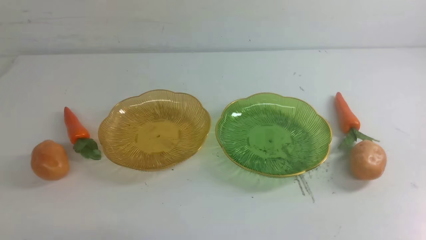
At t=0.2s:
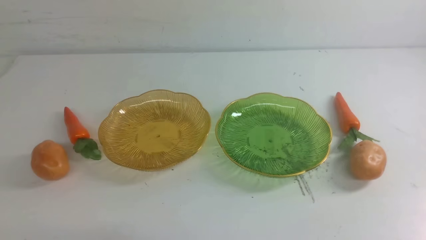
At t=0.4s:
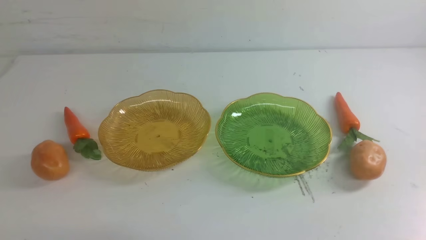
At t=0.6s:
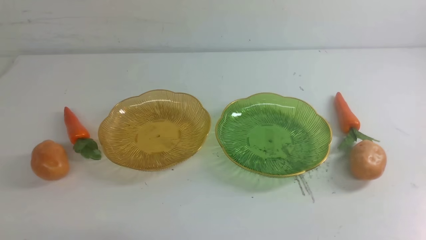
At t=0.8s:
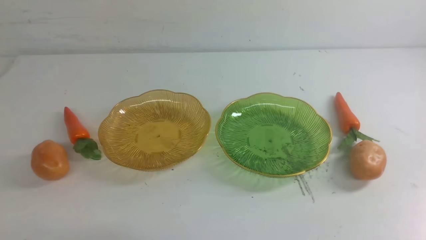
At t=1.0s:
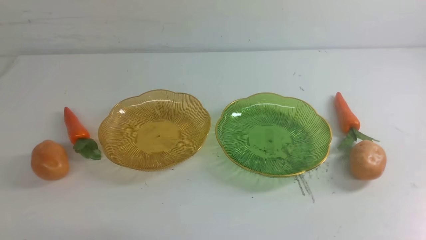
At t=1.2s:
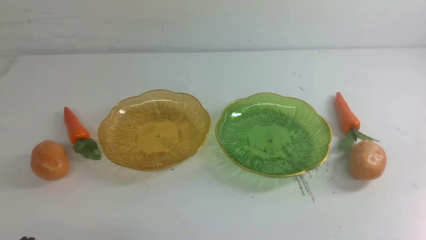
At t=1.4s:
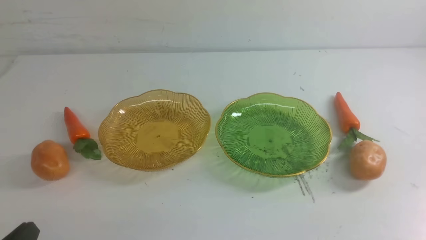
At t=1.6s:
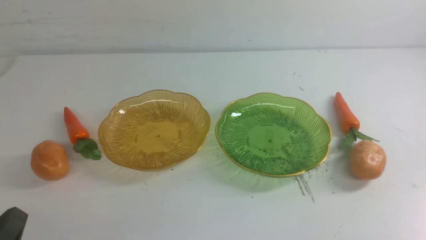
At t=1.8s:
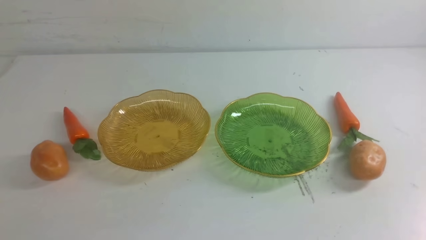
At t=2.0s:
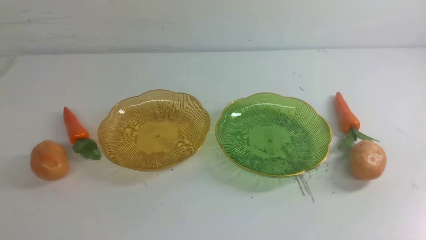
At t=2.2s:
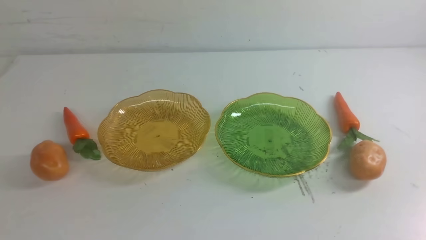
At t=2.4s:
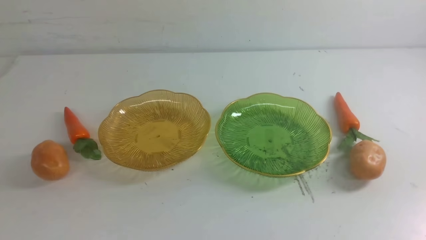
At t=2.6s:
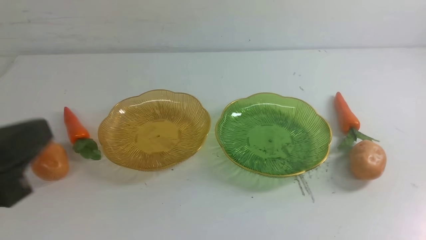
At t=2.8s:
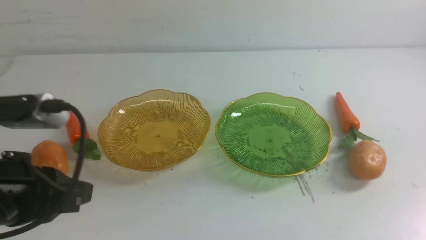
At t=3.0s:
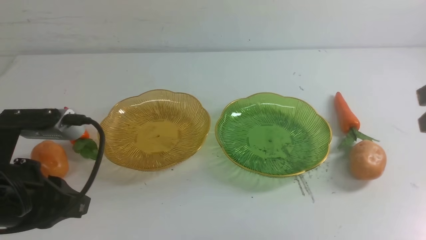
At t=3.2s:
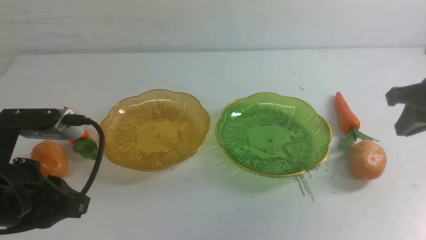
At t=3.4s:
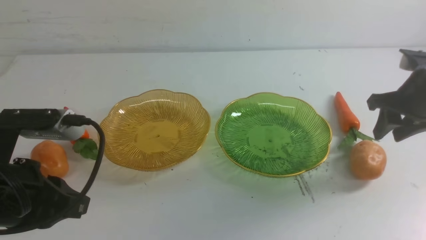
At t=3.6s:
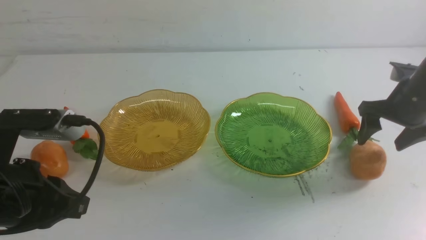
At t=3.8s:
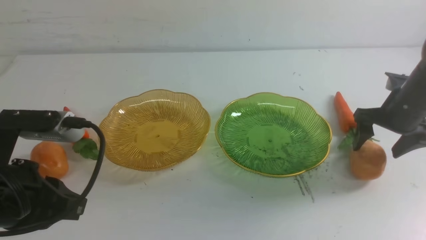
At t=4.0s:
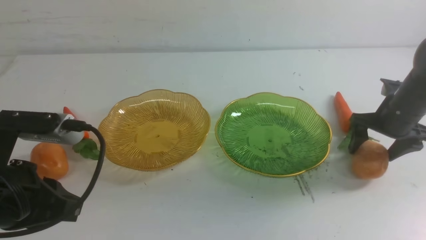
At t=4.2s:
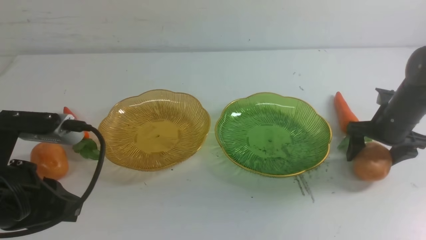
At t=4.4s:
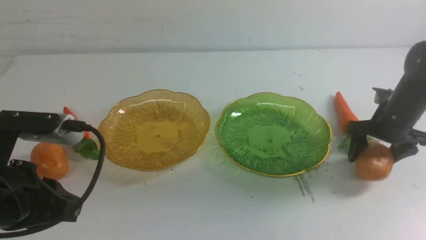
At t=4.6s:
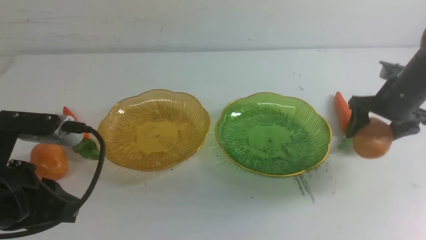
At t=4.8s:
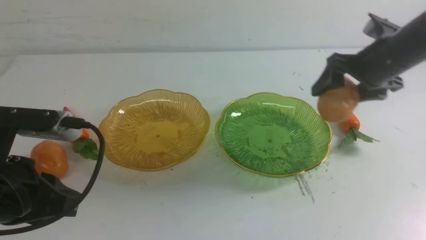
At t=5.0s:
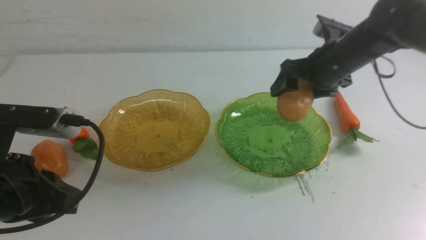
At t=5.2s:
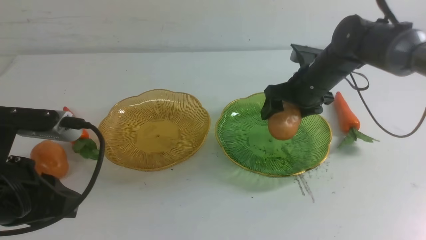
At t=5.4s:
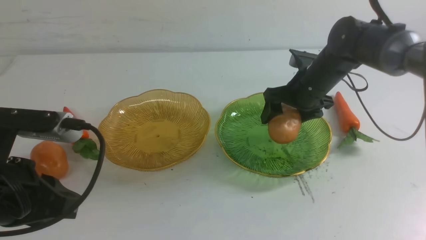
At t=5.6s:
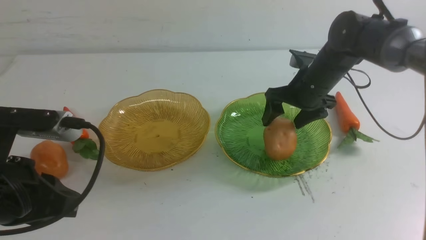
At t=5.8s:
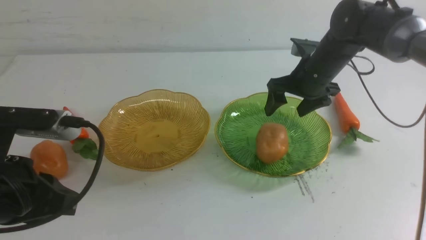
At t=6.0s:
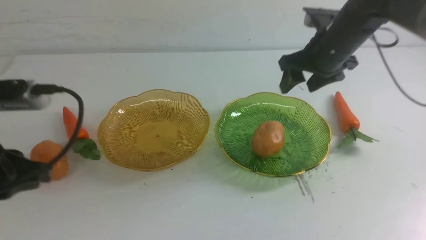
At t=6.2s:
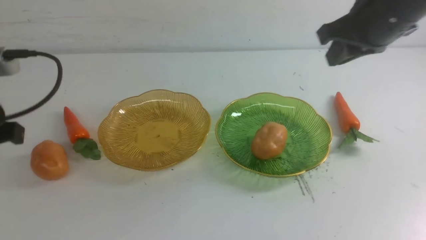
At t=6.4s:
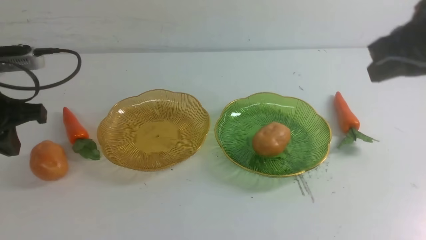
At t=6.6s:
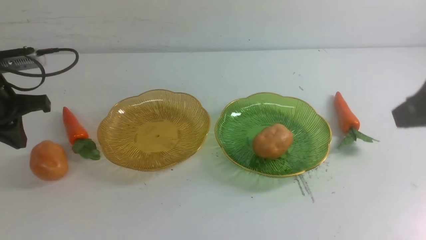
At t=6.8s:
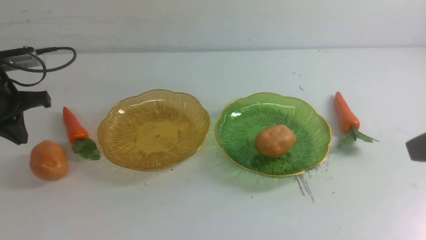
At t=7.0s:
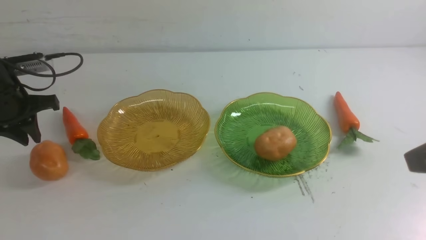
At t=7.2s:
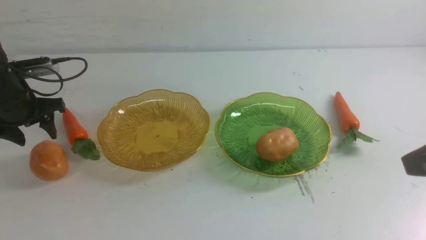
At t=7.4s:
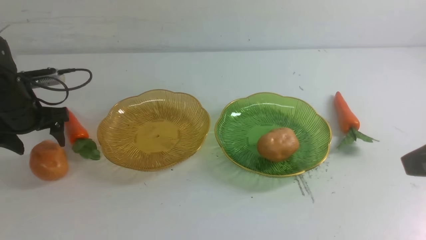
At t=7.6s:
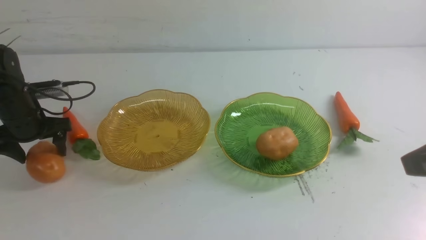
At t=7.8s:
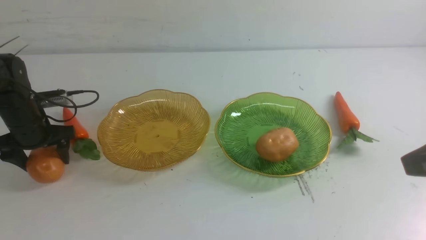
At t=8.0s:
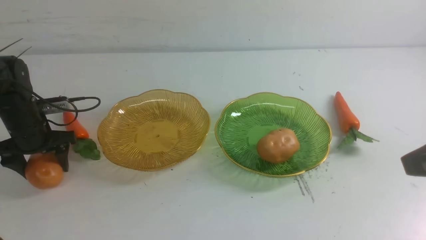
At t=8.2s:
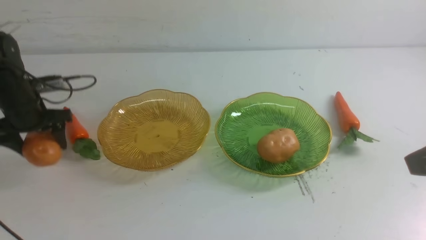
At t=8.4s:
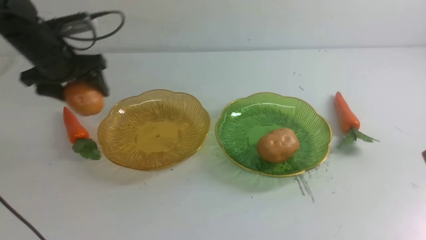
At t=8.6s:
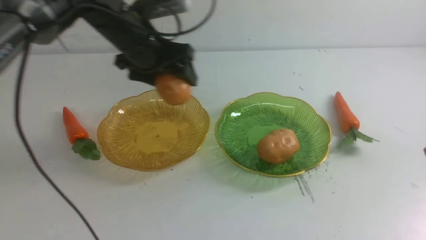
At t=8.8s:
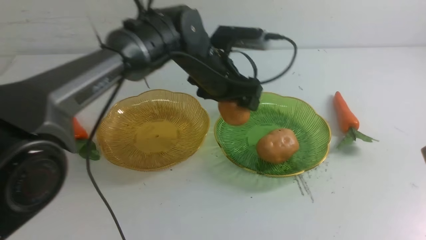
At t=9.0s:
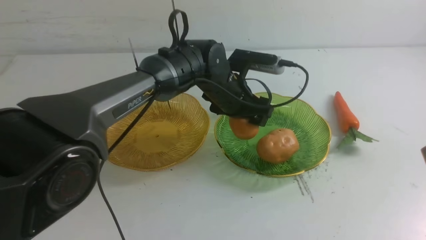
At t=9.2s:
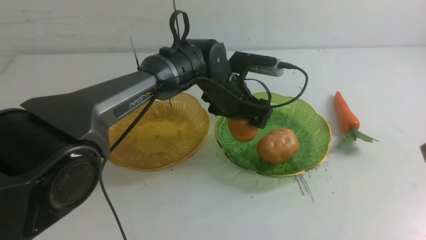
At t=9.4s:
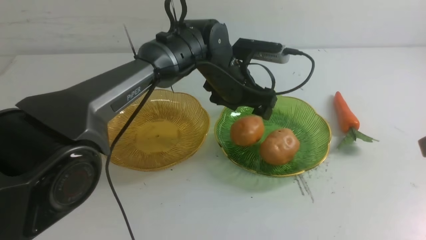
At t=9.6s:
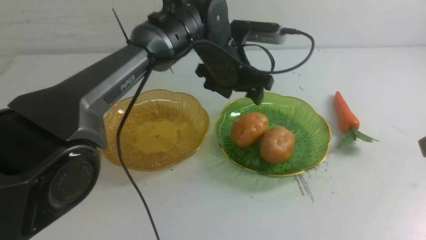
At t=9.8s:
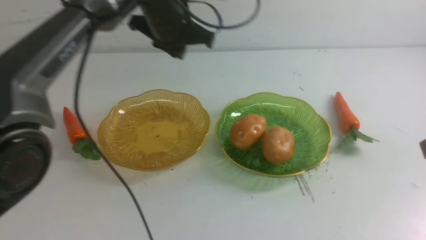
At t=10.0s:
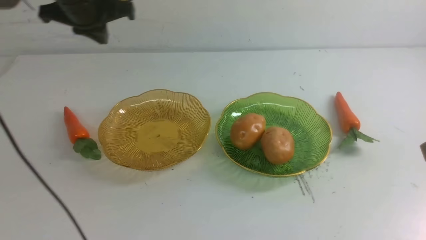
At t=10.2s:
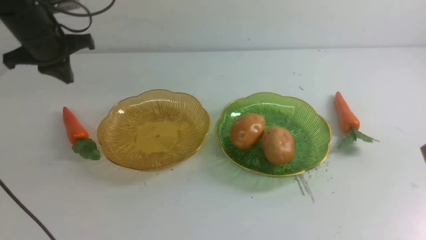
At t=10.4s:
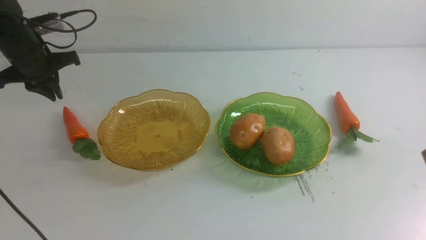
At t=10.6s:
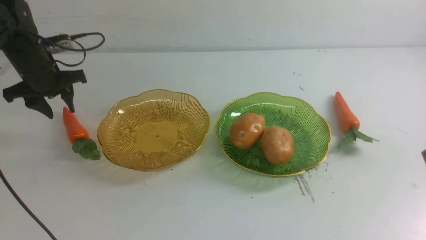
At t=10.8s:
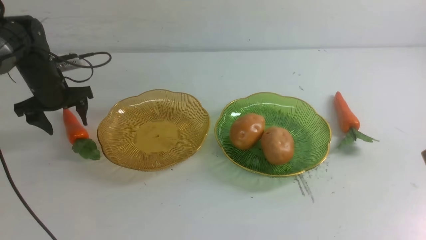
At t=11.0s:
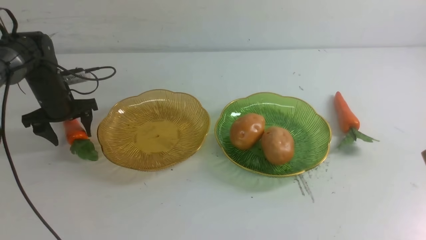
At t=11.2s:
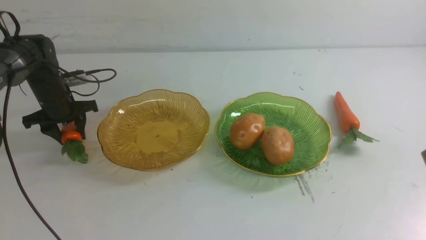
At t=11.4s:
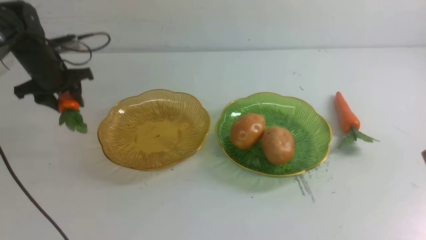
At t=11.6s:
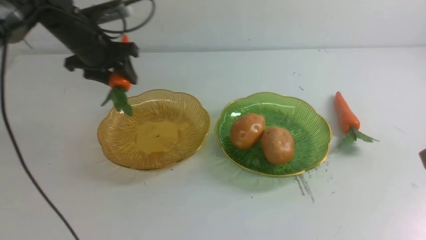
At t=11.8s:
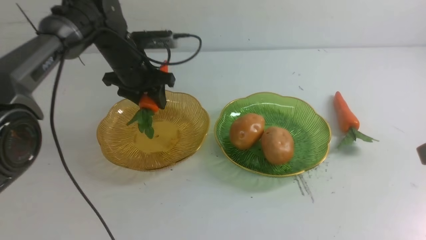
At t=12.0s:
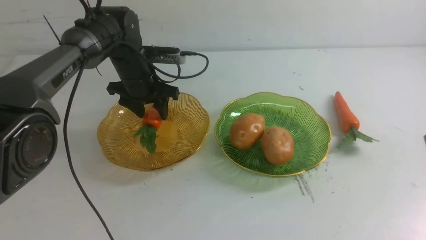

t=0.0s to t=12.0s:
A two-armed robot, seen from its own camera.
Step, t=0.0s to t=6.0s: Grab a potato with your right arm and put it on the right plate.
Step, t=6.2s to t=9.6s: Grab a potato with your left arm and put it on the right plate.
t=1.6s to t=3.0s: The left gripper travels forward and upward by about 15 cm.
t=3.0s to t=4.4s: The right gripper heads downward and forward, covering about 20 cm, and opens its fingers.
t=4.4s to t=6.0s: The right gripper heads upward and to the left, covering some 20 cm.
t=6.0s to t=7.6s: The right gripper heads backward, covering approximately 25 cm, and closes; the left gripper goes about 25 cm forward, downward and to the left, and opens.
t=7.6s to t=9.0s: The left gripper shifts some 35 cm to the right.
t=9.0s to t=10.4s: The left gripper moves to the left, roughly 30 cm, and closes up.
t=10.4s to t=12.0s: The left gripper moves to the right, some 15 cm, and opens its fingers.

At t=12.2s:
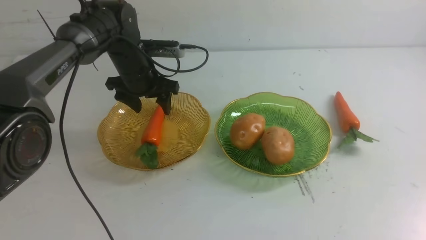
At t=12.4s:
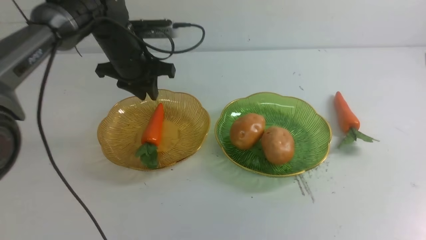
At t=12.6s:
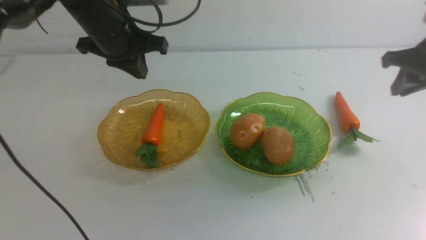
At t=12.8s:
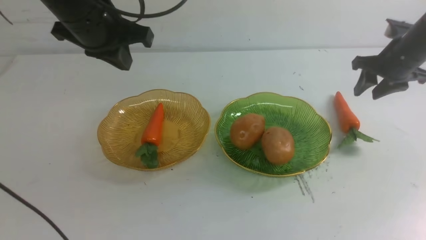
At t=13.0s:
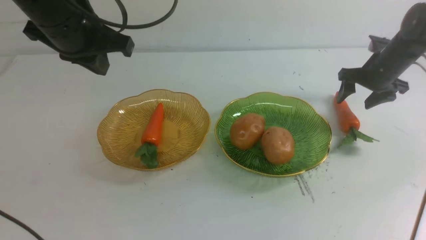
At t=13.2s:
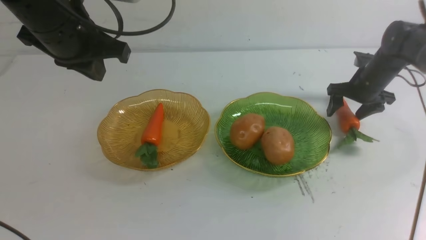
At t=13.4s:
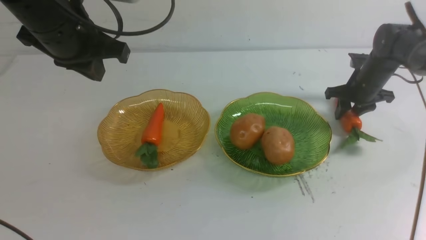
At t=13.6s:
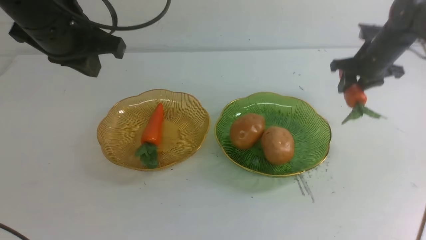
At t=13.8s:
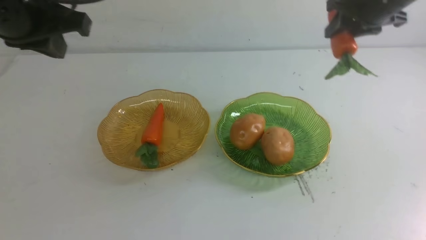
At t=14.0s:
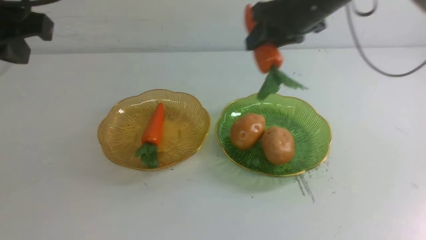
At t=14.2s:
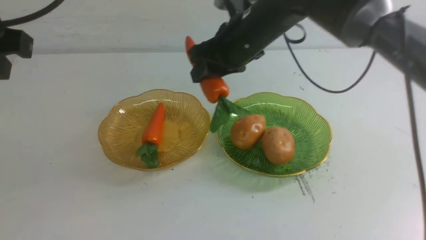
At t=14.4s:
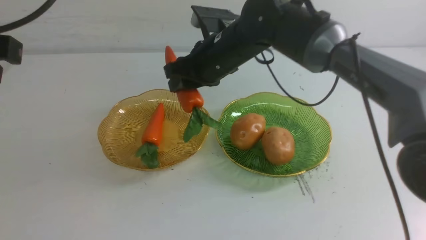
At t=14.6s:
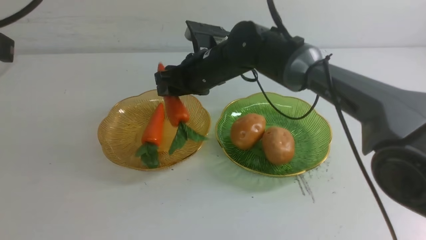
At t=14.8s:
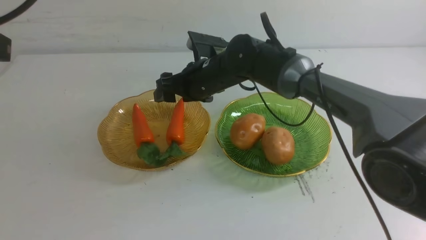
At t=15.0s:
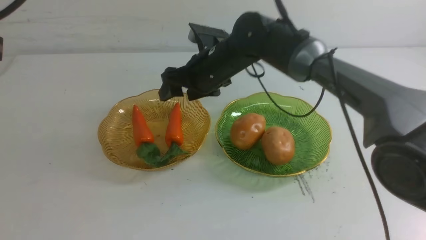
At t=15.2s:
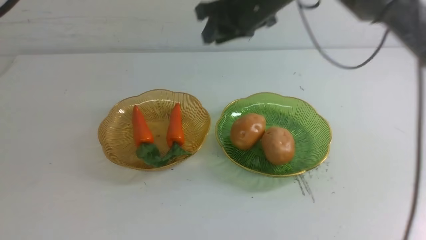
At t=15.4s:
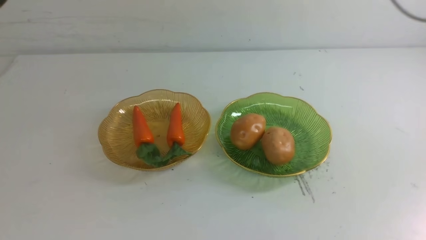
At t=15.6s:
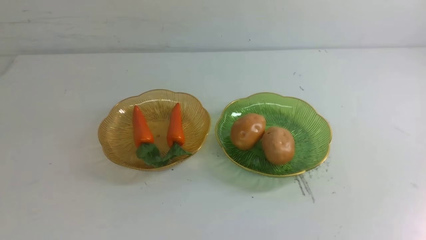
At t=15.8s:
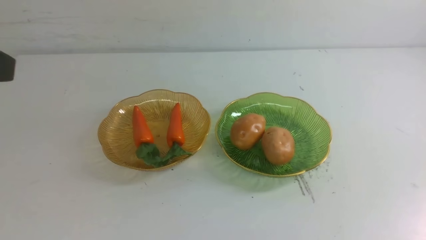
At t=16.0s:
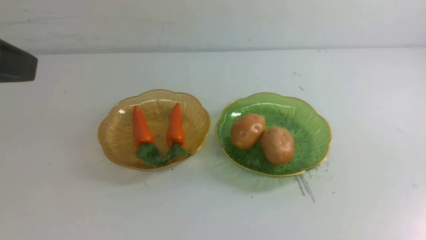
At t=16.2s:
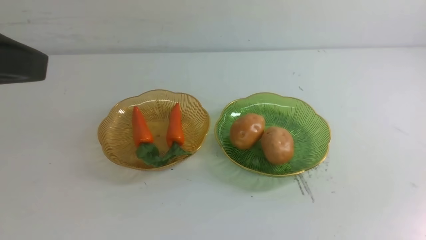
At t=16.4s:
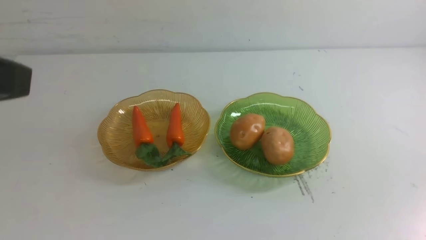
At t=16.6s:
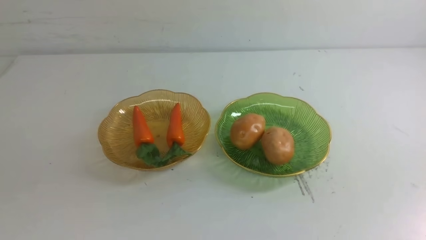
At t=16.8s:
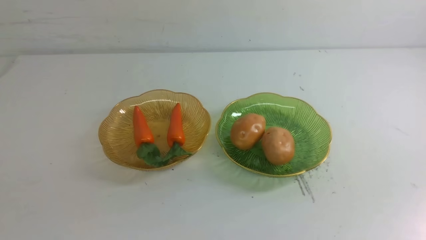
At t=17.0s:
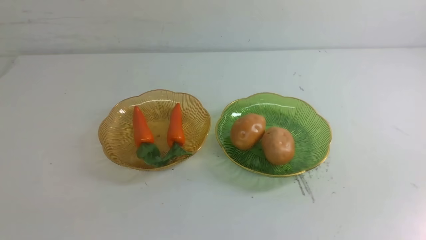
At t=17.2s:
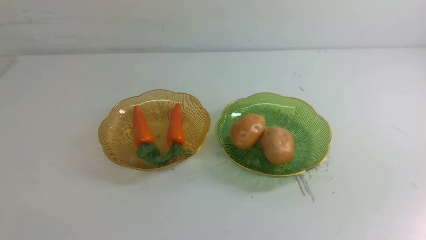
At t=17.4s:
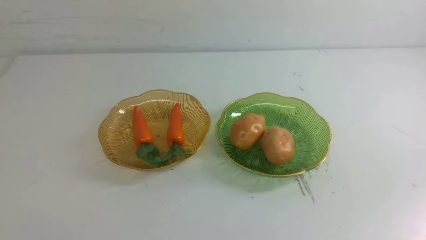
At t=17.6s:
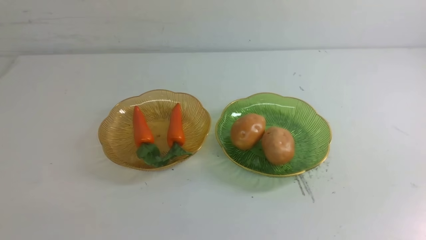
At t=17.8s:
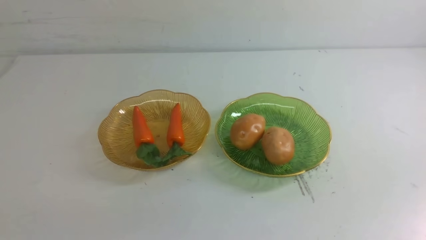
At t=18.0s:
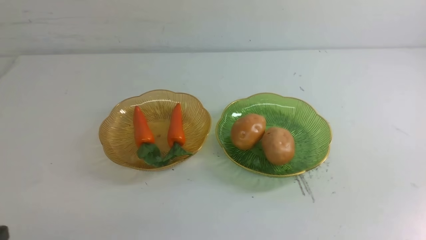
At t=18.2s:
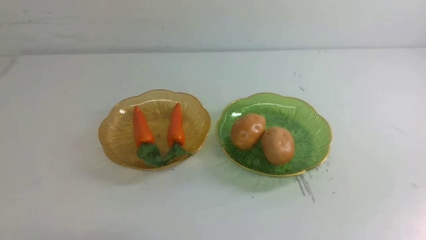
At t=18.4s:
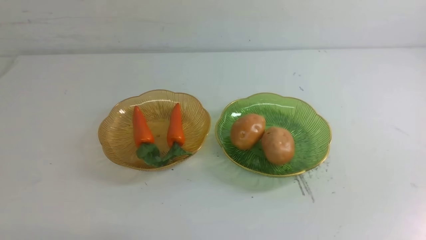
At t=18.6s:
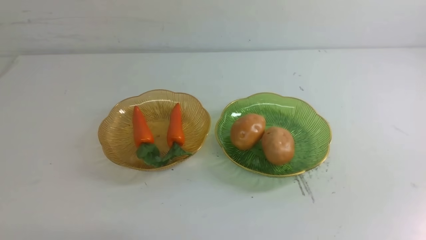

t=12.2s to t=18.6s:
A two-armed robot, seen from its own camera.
Step, t=12.6s to t=15.2s: use the right arm to grab a carrot and put it into the left plate.
t=12.2s to t=13.8s: The right gripper heads forward, covering about 20 cm, and opens up. Meanwhile the left gripper travels upward and backward by about 25 cm, and closes its fingers.
t=13.8s to t=15.4s: The right gripper travels upward, backward and to the left by approximately 25 cm, and closes, while the left gripper shifts some 10 cm backward.
